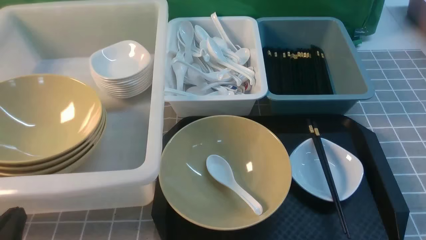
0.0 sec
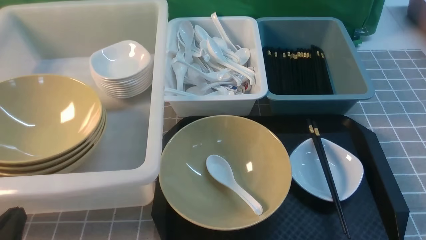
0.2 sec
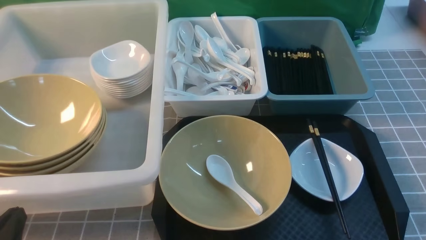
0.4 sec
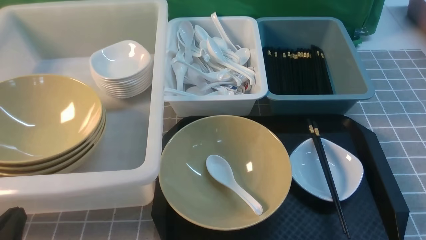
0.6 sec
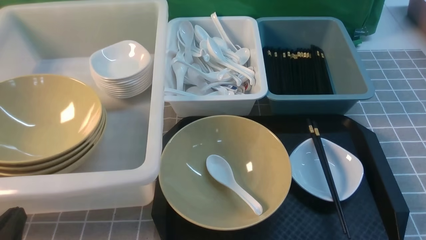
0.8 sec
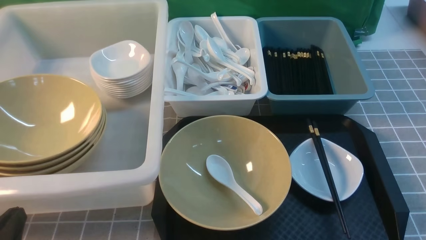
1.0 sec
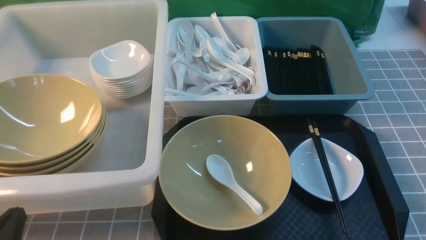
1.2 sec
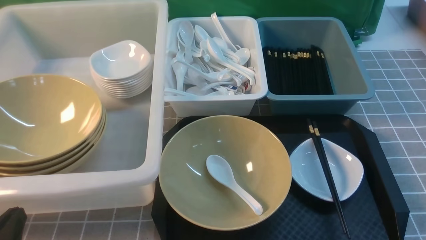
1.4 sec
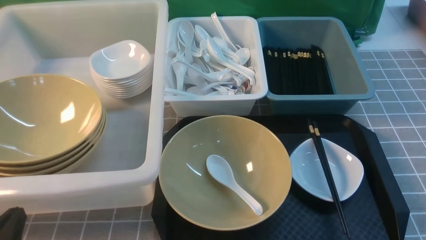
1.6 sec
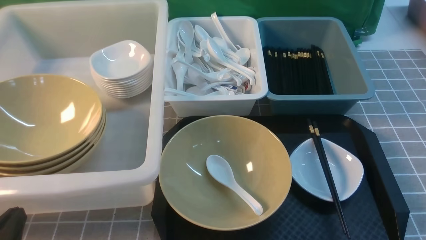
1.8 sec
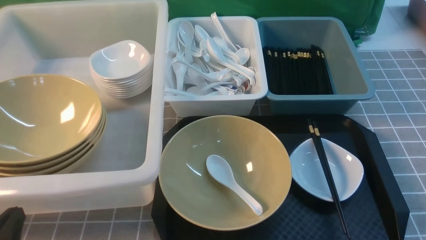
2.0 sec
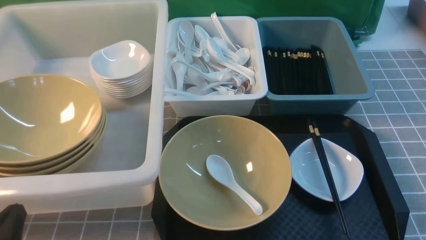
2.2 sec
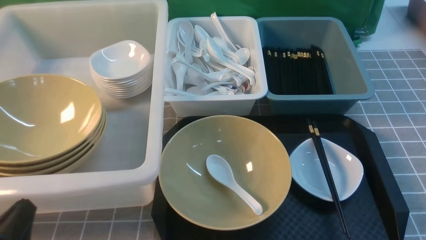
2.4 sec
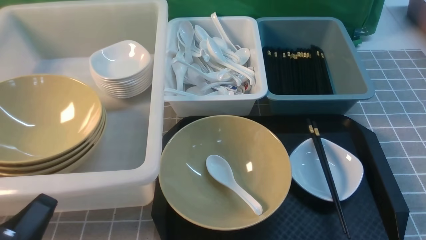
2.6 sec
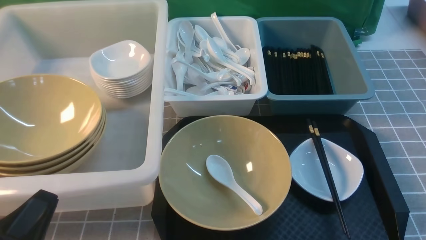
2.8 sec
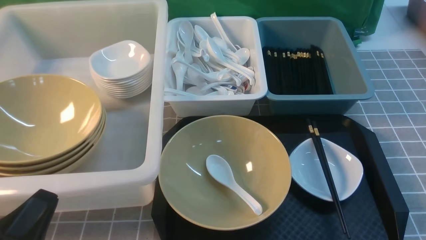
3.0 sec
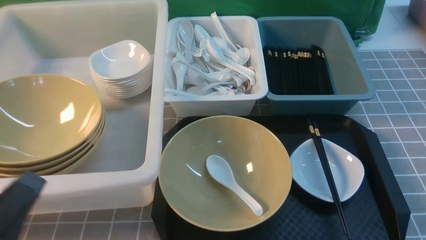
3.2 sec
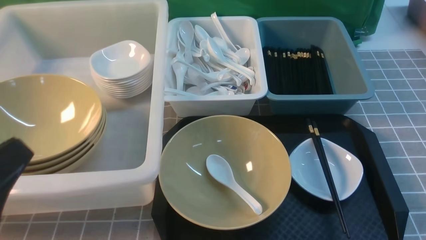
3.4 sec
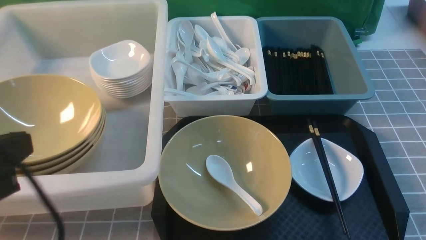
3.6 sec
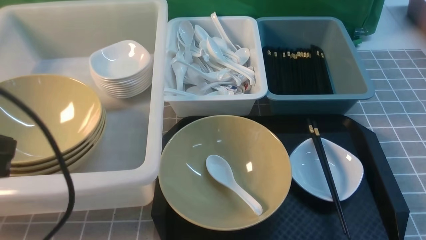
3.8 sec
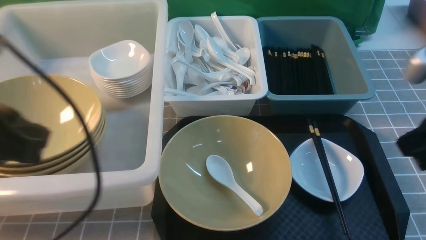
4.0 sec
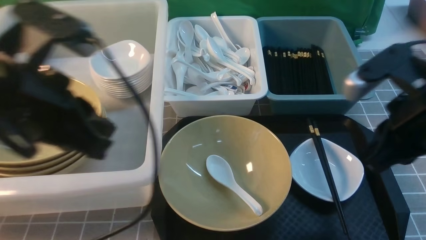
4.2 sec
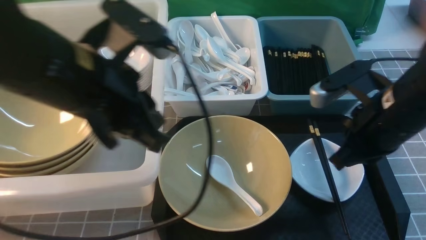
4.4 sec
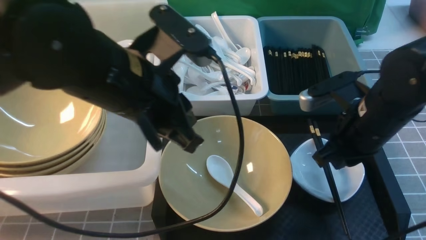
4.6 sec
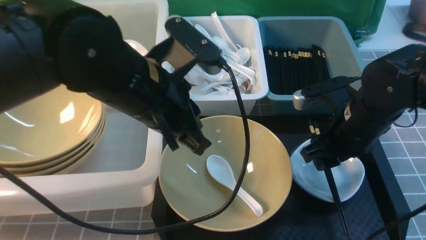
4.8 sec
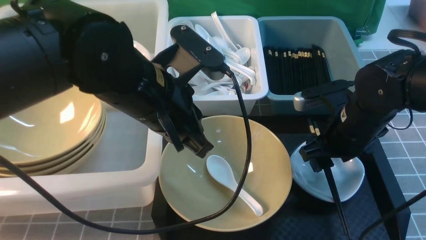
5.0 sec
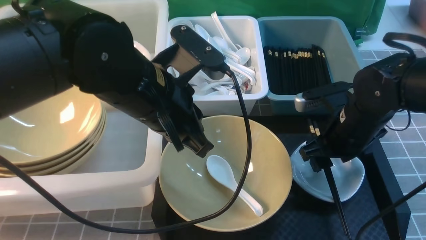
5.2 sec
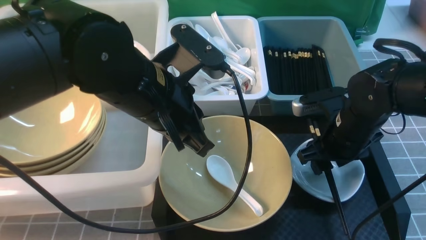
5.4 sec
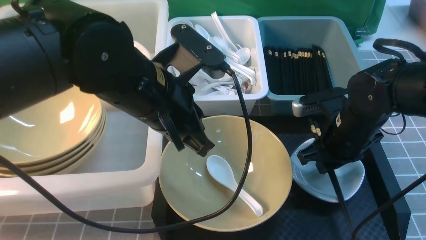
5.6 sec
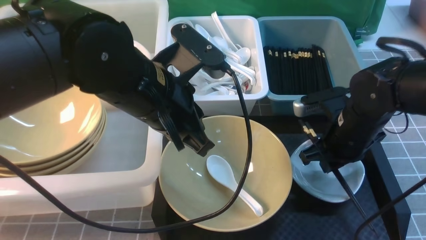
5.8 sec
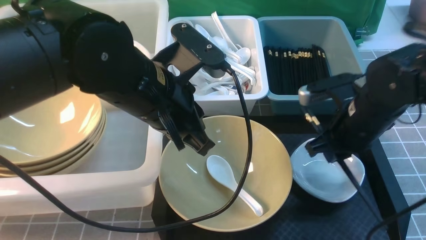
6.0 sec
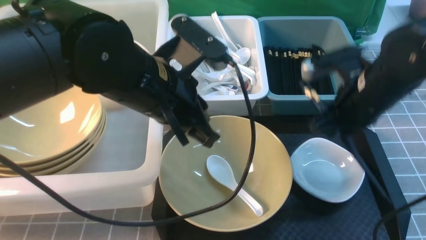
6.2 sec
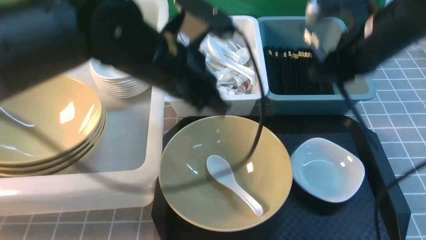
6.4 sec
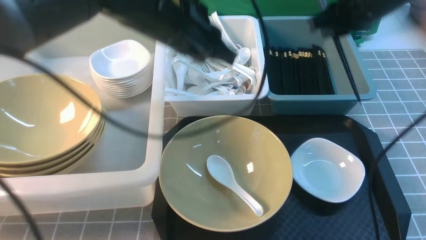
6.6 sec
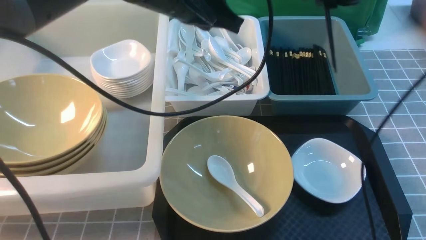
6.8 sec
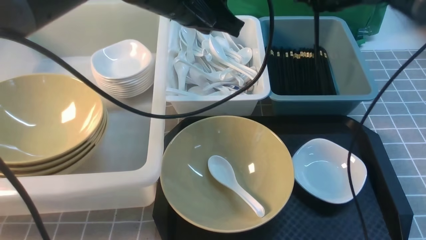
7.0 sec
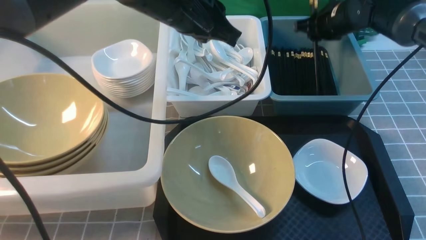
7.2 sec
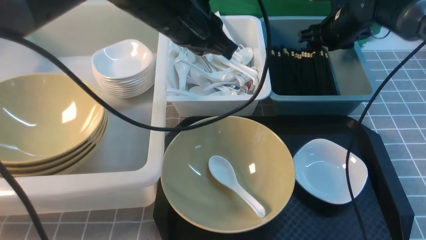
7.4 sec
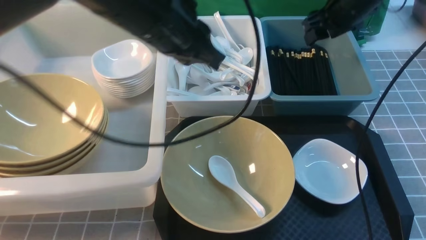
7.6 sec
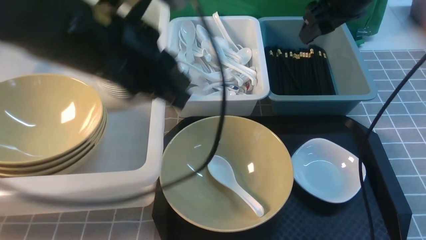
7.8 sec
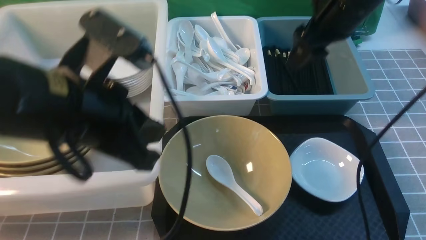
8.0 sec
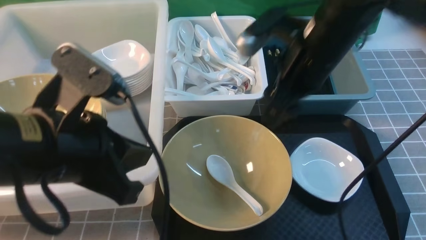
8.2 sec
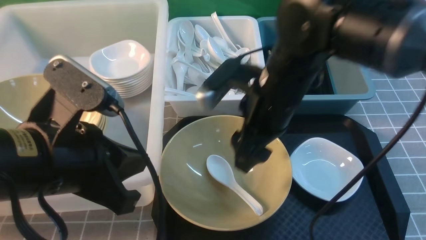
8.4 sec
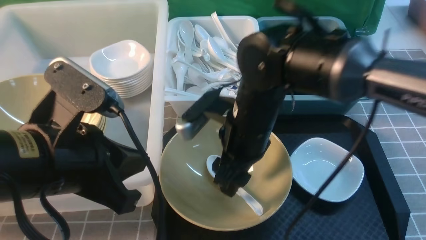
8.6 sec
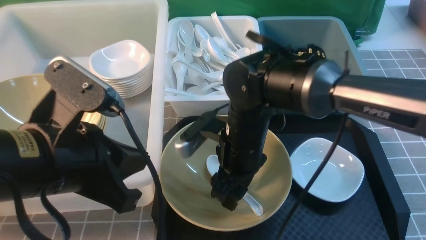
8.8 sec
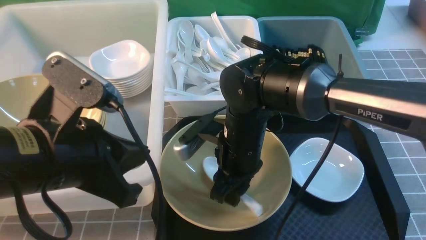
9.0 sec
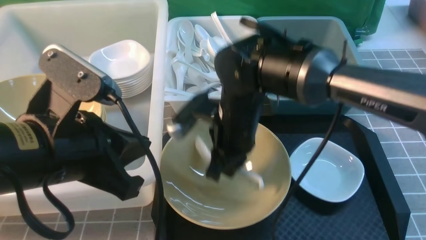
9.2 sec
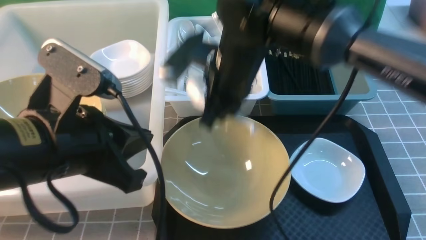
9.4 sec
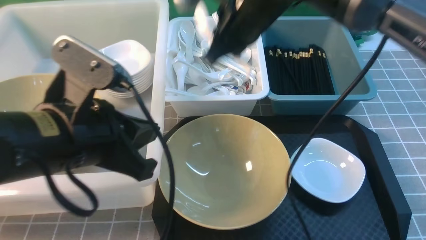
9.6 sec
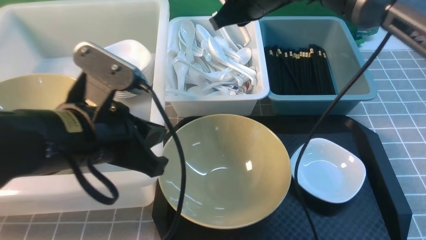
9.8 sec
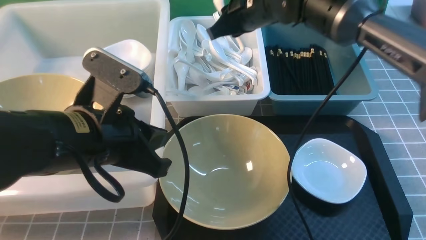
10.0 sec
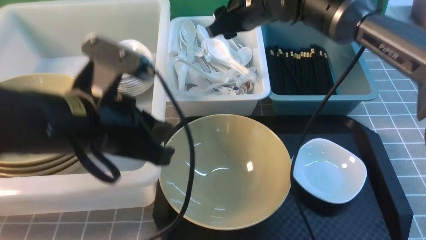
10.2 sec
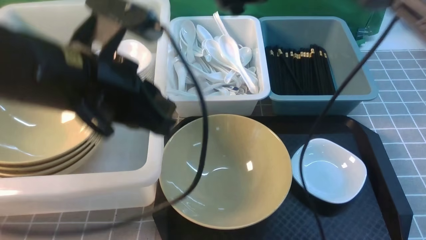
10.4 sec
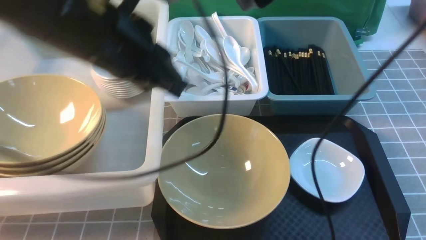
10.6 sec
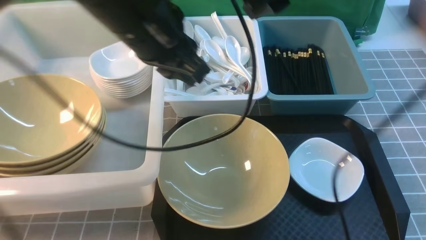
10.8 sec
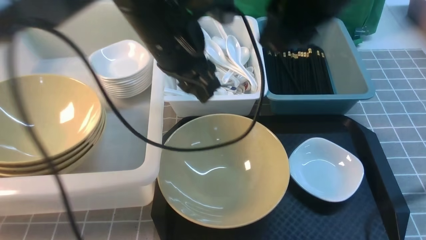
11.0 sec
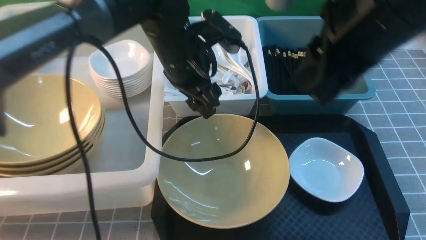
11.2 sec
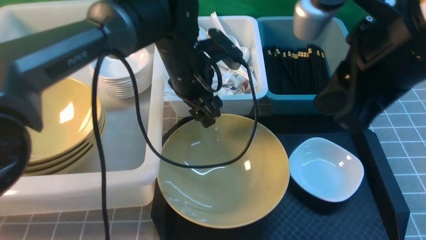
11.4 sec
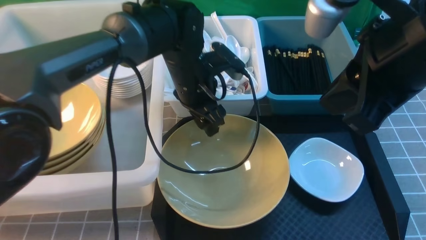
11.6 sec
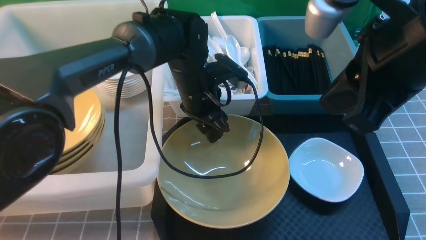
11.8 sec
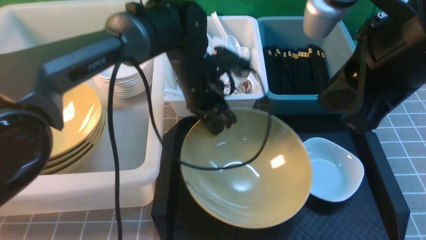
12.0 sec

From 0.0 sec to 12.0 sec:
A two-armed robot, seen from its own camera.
Task of the whole recording: on grey table put chopsticks spoon bowls plates into blue grey white boxes.
Step, from 0.0 sec to 5.8 sec: use the right arm to grab the chopsticks.
Step, from 6.0 sec to 7.4 sec: use the right arm to put the chopsticks into the small storage box on the right.
Step, from 7.8 sec to 9.2 sec: use the right arm to grab the soup spoon in the middle.
Step, from 9.4 sec to 10.2 sec: use the right arm to put the soup spoon into the small storage box in the middle.
From 0.0 sec to 1.6 sec: Both grippers stay put.
From 3.0 sec to 4.4 sec: The right gripper is displaced forward, to the left and upward by roughly 25 cm. The left gripper goes roughly 25 cm forward, upward and to the right.
From 4.4 sec to 6.0 sec: The right gripper shifts about 5 cm forward, and opens and closes again. The left gripper shifts by approximately 5 cm.
From 6.0 sec to 7.6 sec: The right gripper is displaced forward and upward by about 20 cm, and opens. The left gripper moves upward, approximately 5 cm, and moves approximately 10 cm forward and comes back.
From 7.6 sec to 9.0 sec: The left gripper goes approximately 15 cm backward, to the left and downward; the right gripper is displaced to the left, backward and downward by approximately 30 cm, and closes up.
From 9.0 sec to 10.4 sec: The left gripper heads forward, covering about 5 cm; the right gripper is displaced upward and forward by roughly 20 cm, and opens.
From 10.4 sec to 12.0 sec: The right gripper shifts roughly 20 cm backward, and closes, while the left gripper shifts approximately 20 cm forward, downward and to the right, and opens, then closes again.

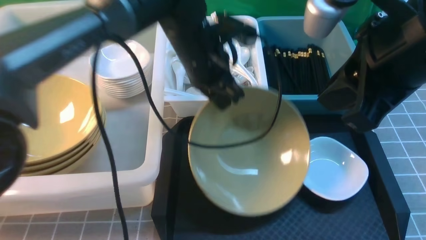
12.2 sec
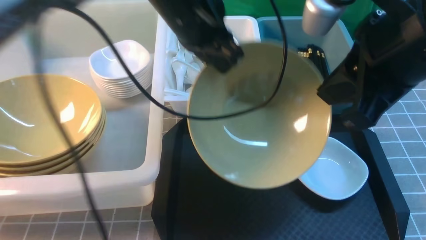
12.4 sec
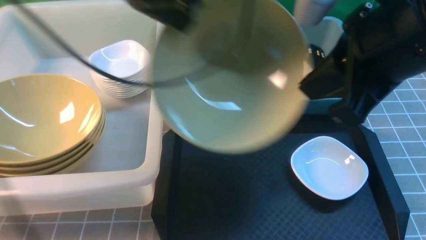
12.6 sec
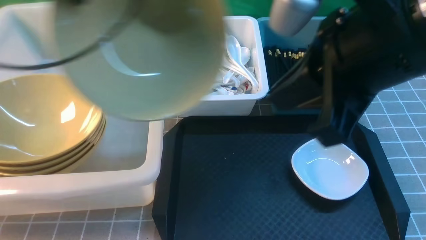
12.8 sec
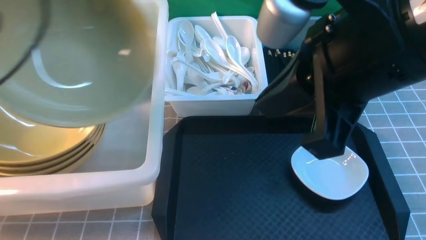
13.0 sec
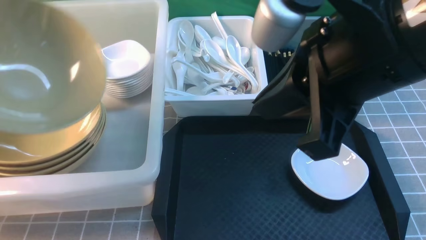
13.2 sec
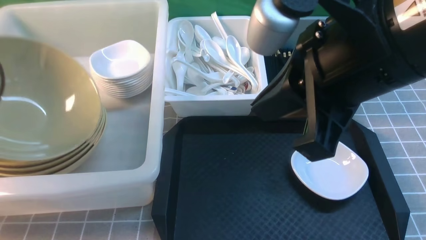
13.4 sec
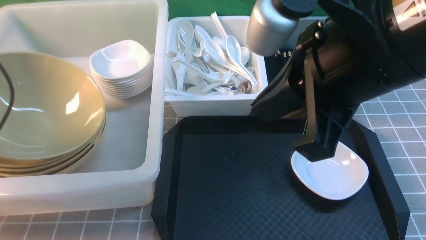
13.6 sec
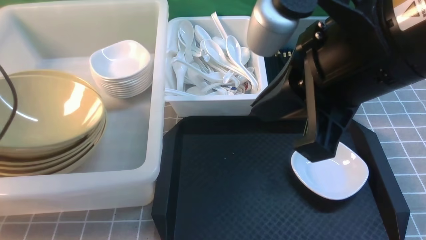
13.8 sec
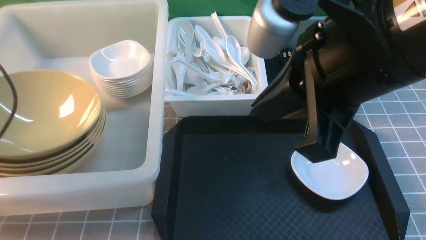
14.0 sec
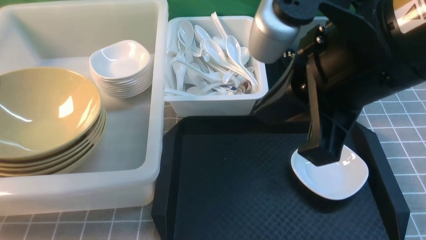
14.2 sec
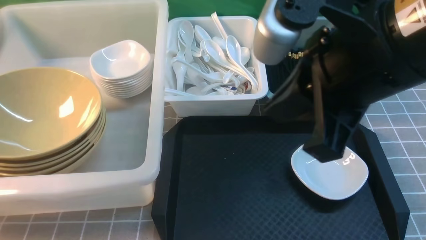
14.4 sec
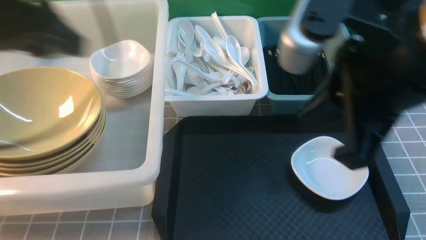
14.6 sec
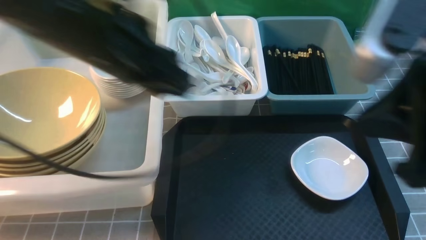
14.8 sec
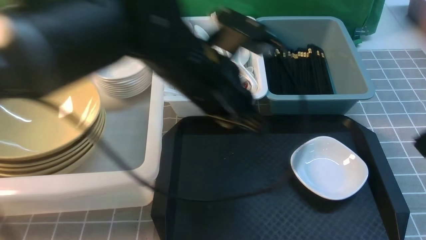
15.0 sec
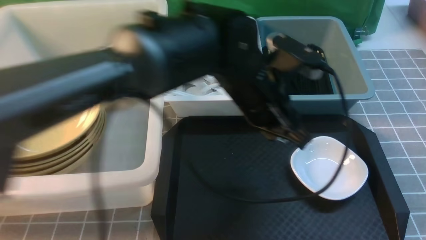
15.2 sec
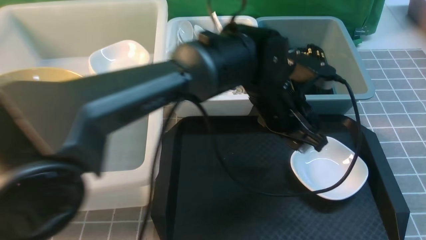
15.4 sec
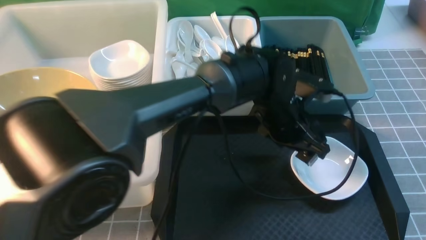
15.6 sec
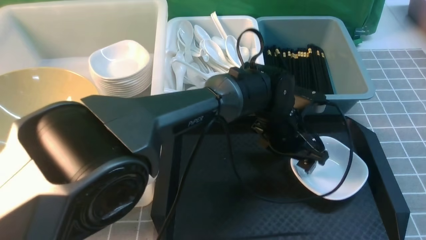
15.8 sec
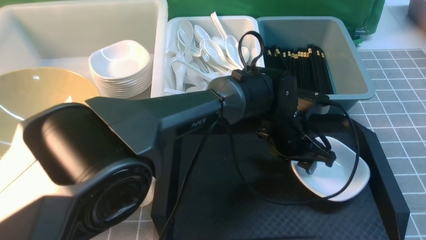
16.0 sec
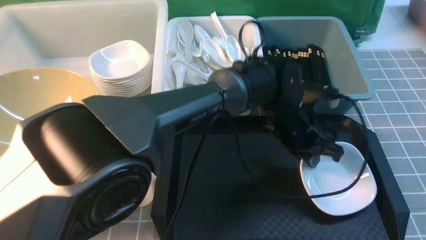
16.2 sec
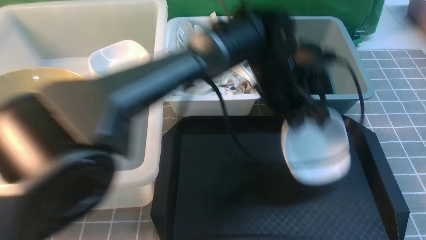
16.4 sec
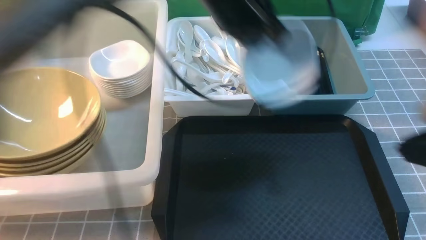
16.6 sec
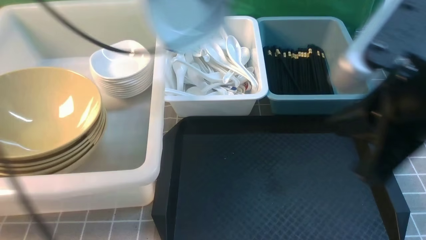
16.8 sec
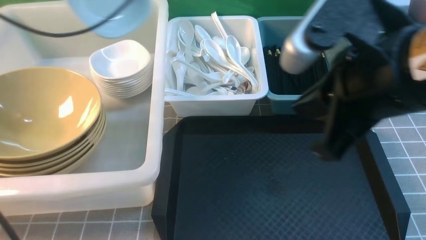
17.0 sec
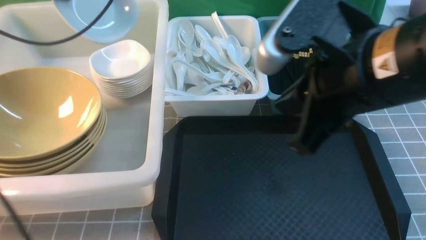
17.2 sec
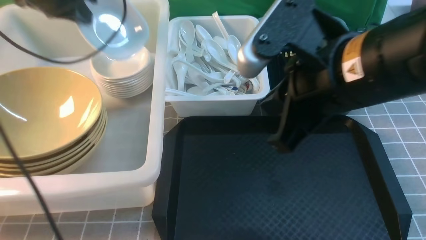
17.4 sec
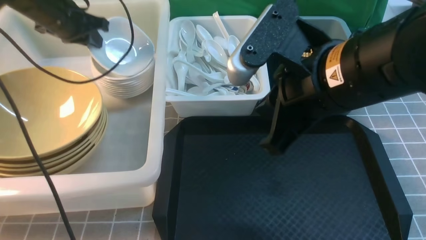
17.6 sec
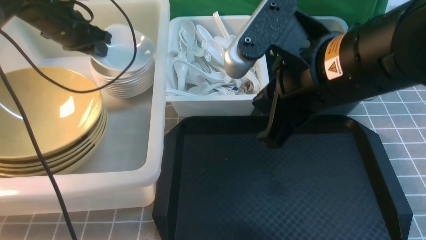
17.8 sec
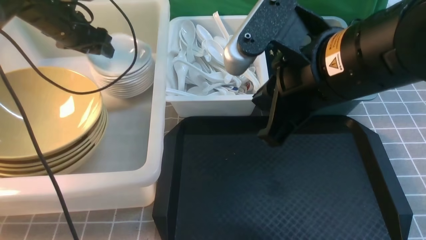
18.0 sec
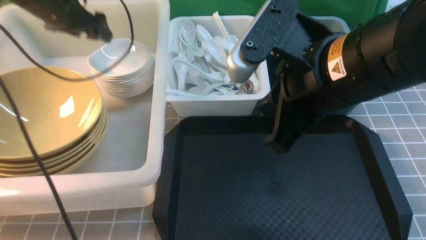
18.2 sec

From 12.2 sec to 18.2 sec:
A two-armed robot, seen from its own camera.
Task of the whole recording: on grey table put chopsticks spoon bowls plates into blue grey white boxes.
Step, from 12.4 sec to 14.0 sec: use the left arm to put the noodle bowl into the large storage box on the left.
Step, from 14.2 sec to 16.2 sec: use the left arm to grab the plate.
From 12.2 sec to 13.8 sec: The right gripper moves approximately 5 cm; the left gripper goes roughly 35 cm to the left, and opens up.
From 13.8 sec to 15.2 sec: The right gripper moves to the right and backward, about 15 cm. Meanwhile the left gripper travels to the right by about 40 cm, and opens, then closes again.
From 15.2 sec to 16.6 sec: The right gripper changes place by some 5 cm. The left gripper shifts some 15 cm upward, to the left and forward, and closes.
From 16.6 sec to 18.2 sec: The right gripper moves to the left and forward, some 15 cm. Meanwhile the left gripper moves to the left and forward, roughly 25 cm, and opens its fingers.
